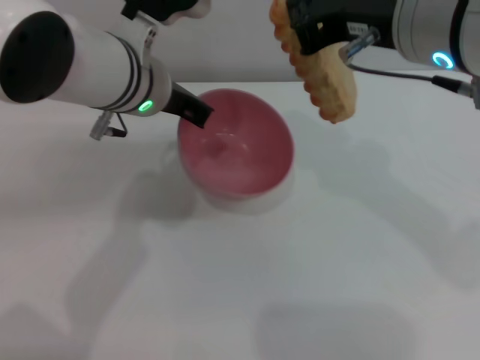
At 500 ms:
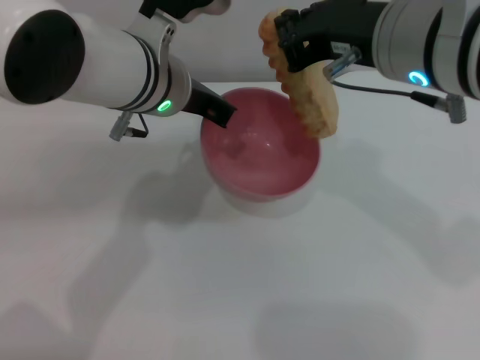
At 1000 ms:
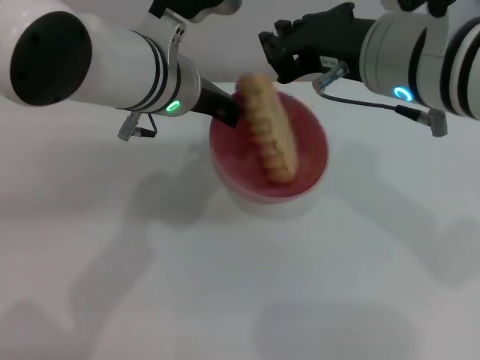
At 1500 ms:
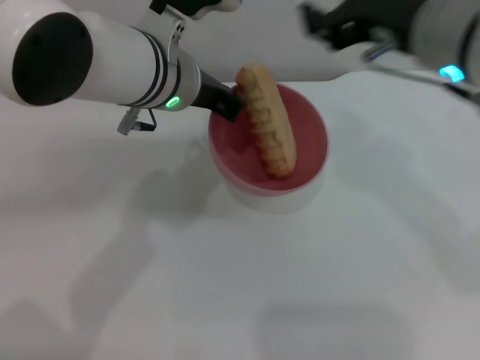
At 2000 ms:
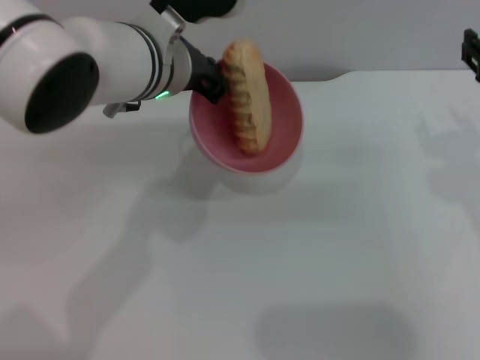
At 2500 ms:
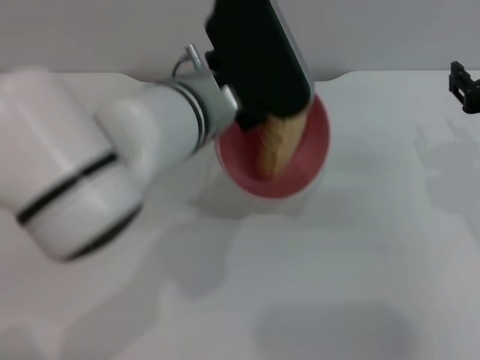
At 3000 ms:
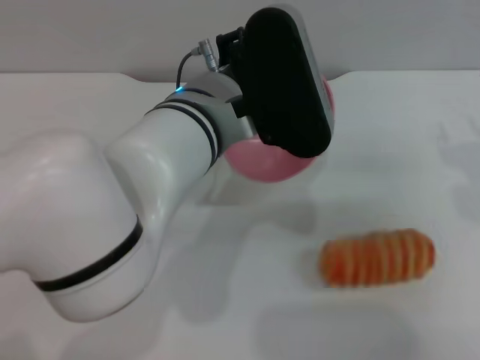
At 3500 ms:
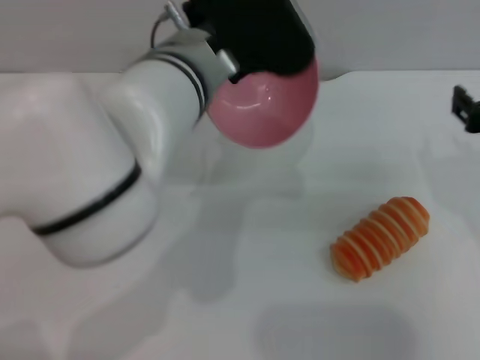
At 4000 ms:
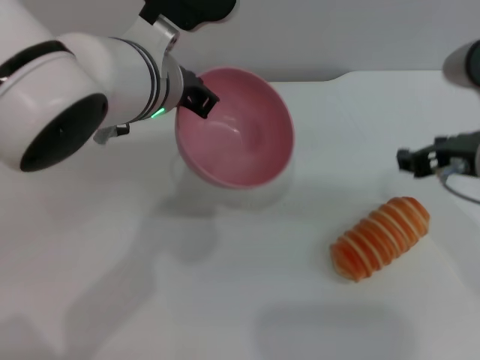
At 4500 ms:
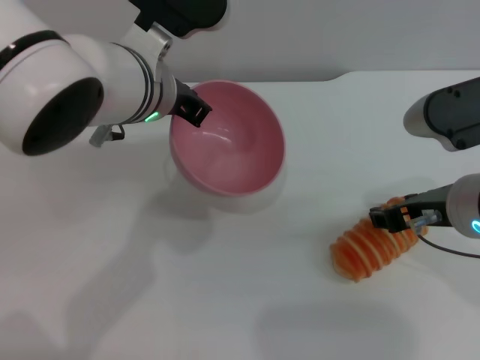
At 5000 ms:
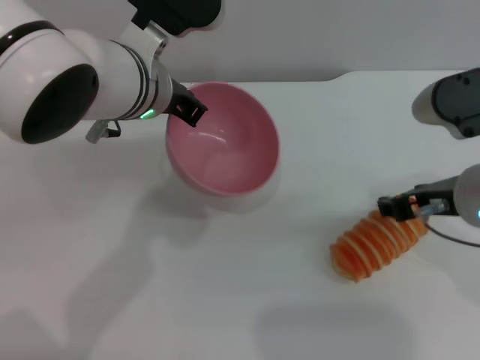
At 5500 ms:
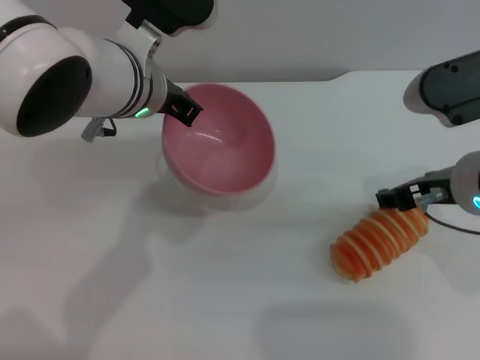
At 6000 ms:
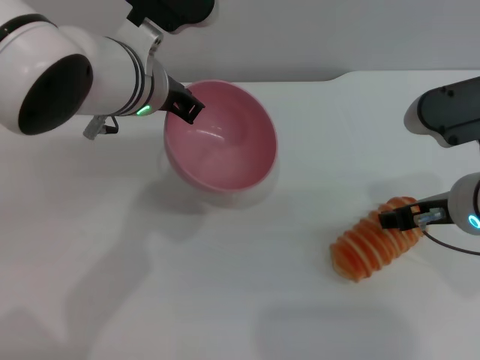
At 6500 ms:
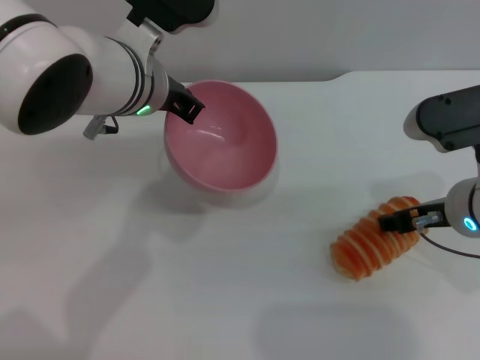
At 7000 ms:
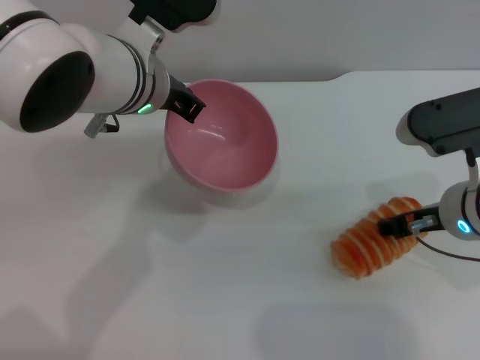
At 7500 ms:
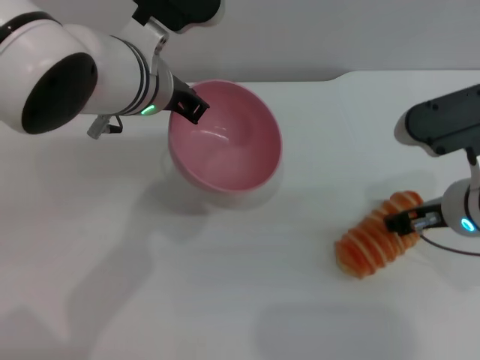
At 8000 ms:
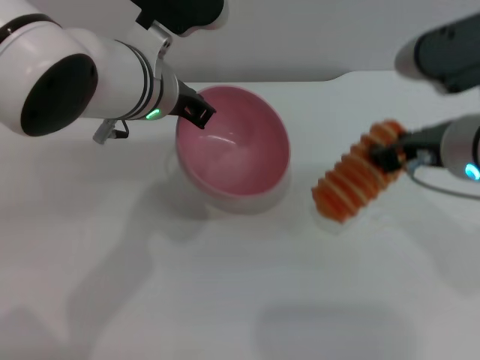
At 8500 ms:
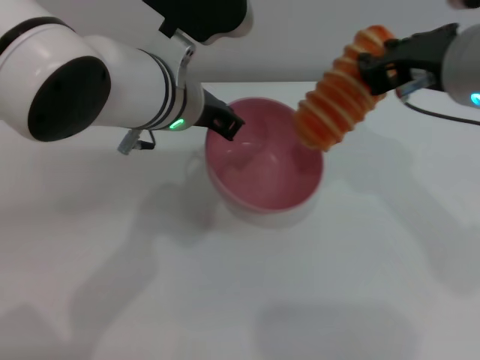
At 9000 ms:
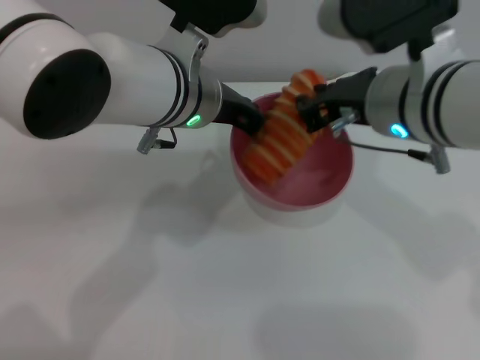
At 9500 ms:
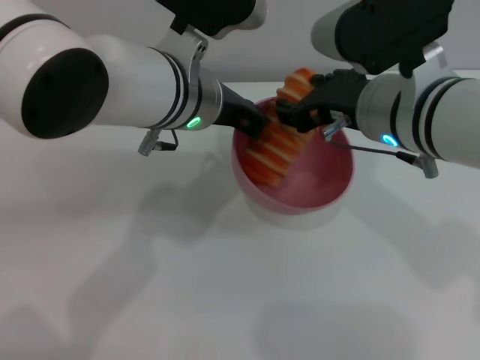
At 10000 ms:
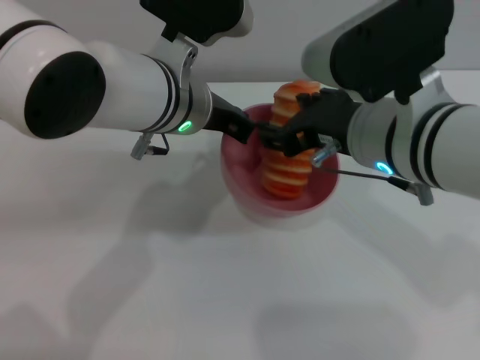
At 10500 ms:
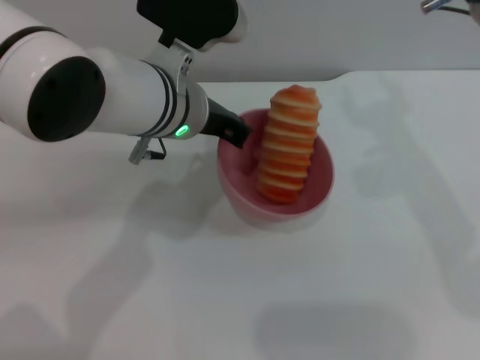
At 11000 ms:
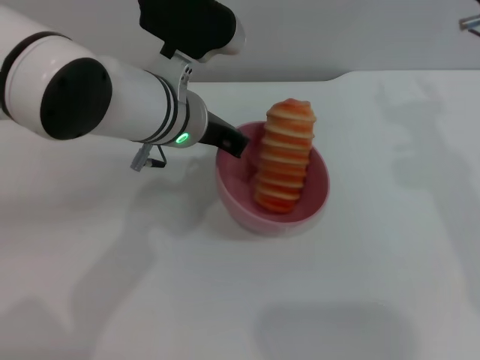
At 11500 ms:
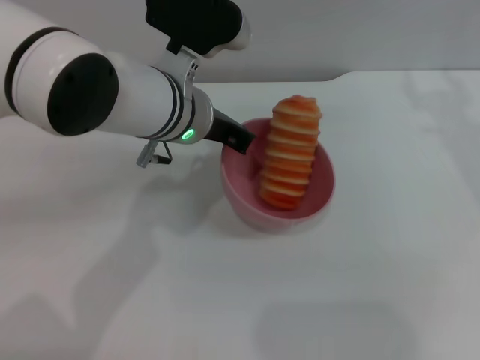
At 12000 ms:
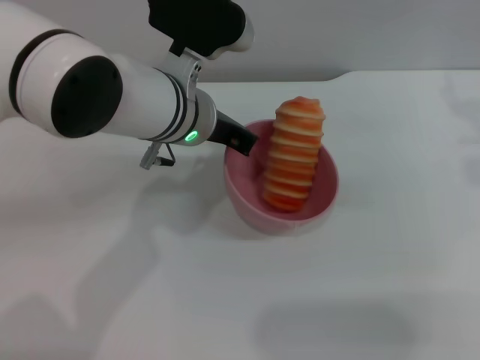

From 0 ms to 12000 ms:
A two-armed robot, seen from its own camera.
Task of the whole recording: put the bread into the pink bowl and pour it out repeatedly.
Step, from 500 ms to 1000 ms: Place the bread into the bowl.
Step, from 2000 ms to 2500 ms: Pour the bread out of the bowl.
Step, from 3500 ms to 8000 ms: Pick up the bread with the right gripper.
Step, from 8500 ms to 10000 ms: Place the bread into the bowl.
From 0 ms to 2000 ms: The right gripper heads to the right and downward, covering about 15 cm, and opens.
From 4000 ms to 6000 ms: The grippers move only a little.
From 6000 ms to 8000 ms: The right gripper moves upward, roughly 5 cm, and closes.
From 8000 ms to 10000 ms: The right gripper travels to the left by about 5 cm.
From 10000 ms to 12000 ms: The right gripper travels to the right by some 20 cm.

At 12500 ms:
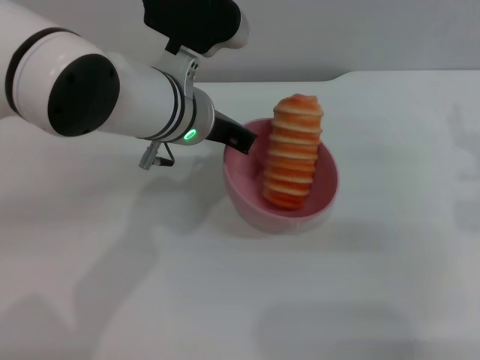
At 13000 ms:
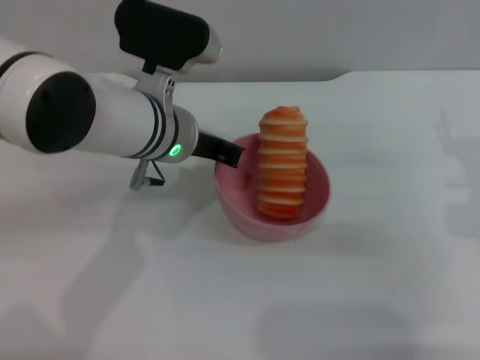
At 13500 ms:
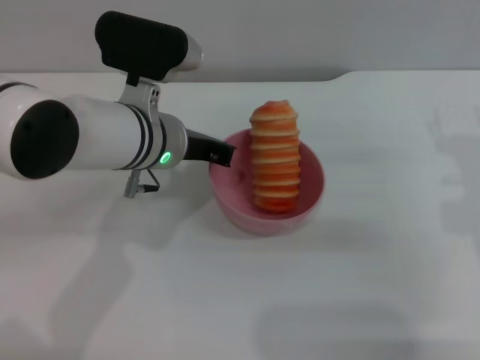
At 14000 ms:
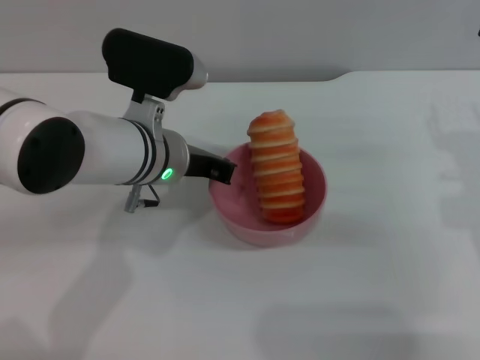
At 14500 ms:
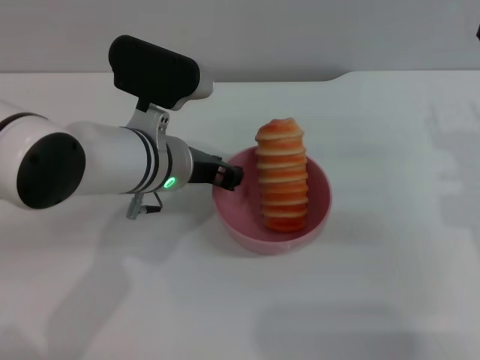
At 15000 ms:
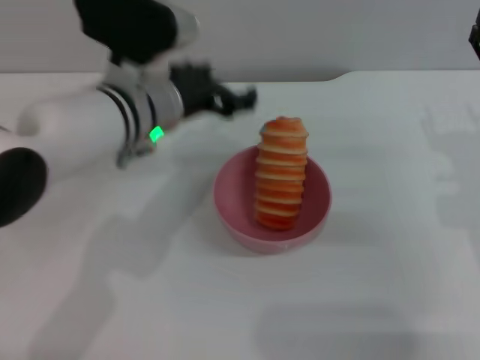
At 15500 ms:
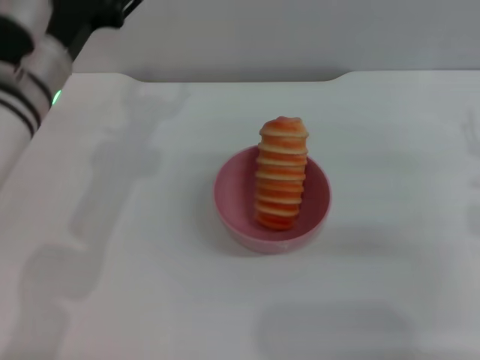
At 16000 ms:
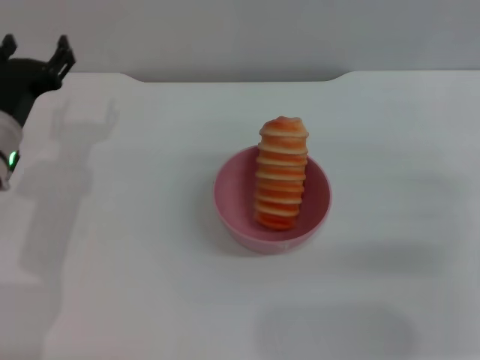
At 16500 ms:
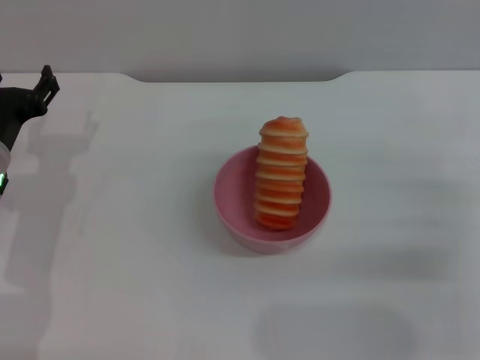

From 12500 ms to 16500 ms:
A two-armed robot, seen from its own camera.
Task of the whole recording: put the bread into the pink bowl and pour it out repeatedly.
Step, from 12500 ms to 14500 ms: Place the bowl on the table.
From 12500 ms to 14500 ms: The left gripper shifts by roughly 5 cm.
From 14500 ms to 16500 ms: The left gripper heads to the left, covering approximately 15 cm, and opens up, while the right gripper is displaced downward by roughly 5 cm.
